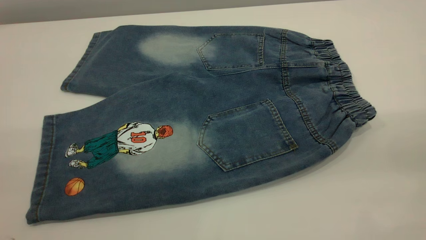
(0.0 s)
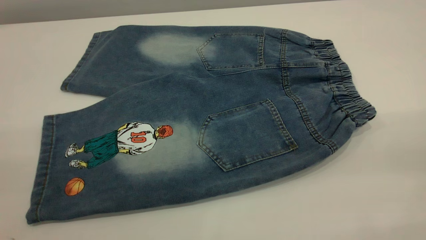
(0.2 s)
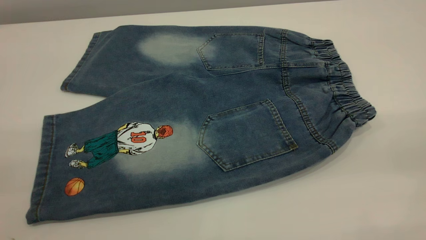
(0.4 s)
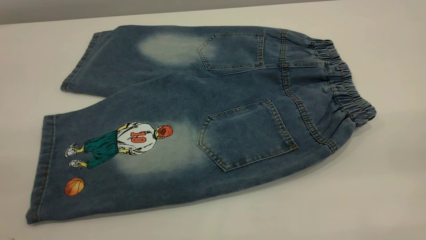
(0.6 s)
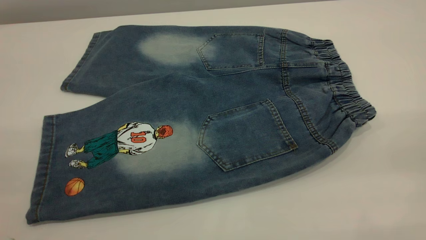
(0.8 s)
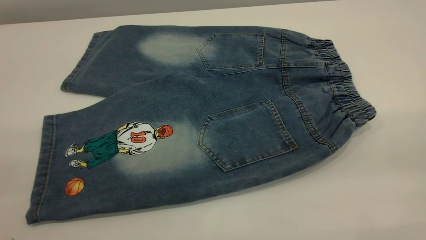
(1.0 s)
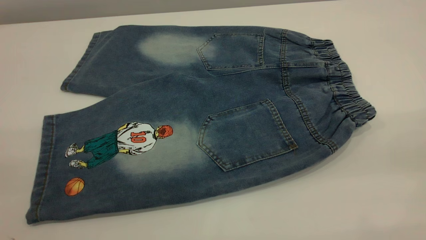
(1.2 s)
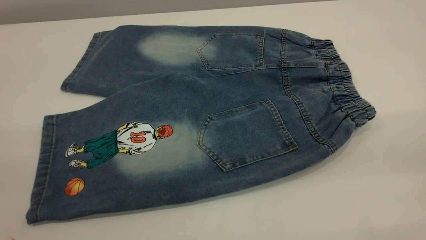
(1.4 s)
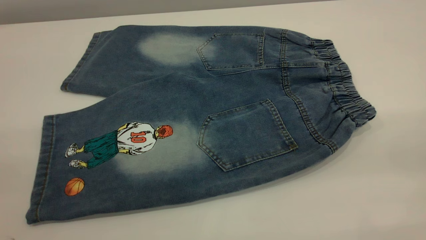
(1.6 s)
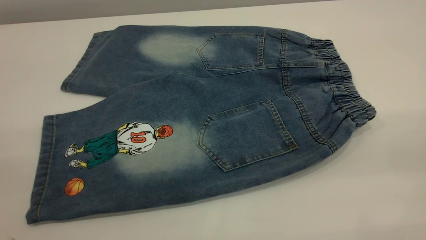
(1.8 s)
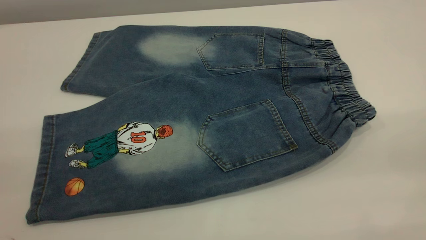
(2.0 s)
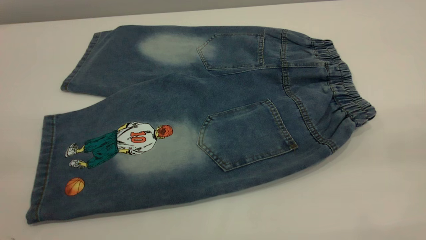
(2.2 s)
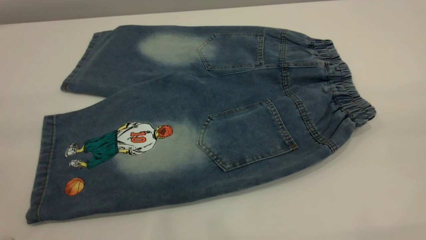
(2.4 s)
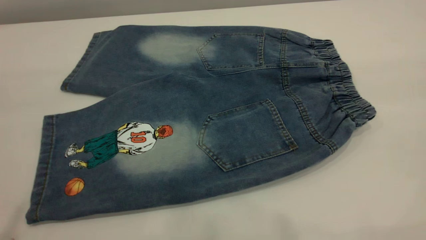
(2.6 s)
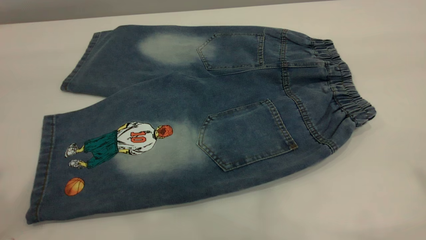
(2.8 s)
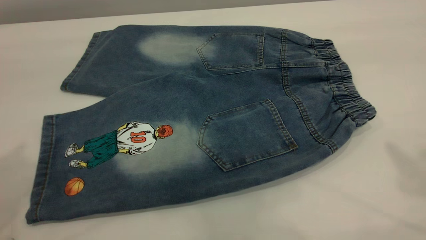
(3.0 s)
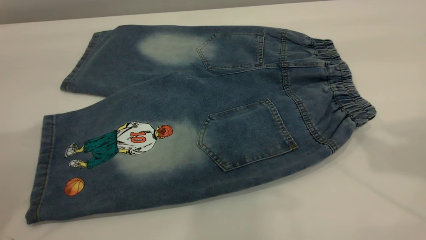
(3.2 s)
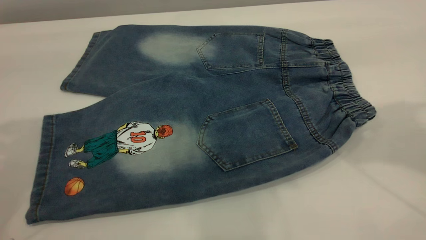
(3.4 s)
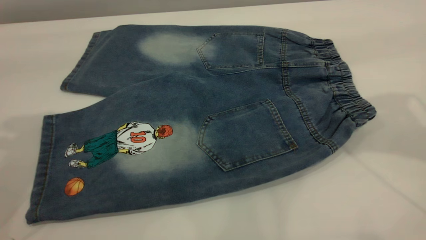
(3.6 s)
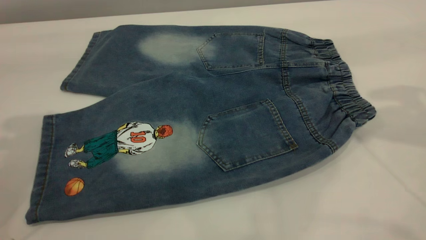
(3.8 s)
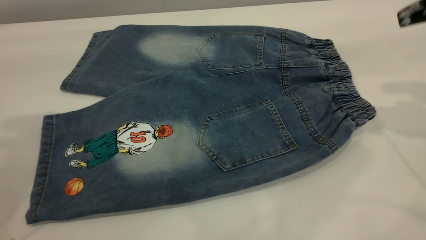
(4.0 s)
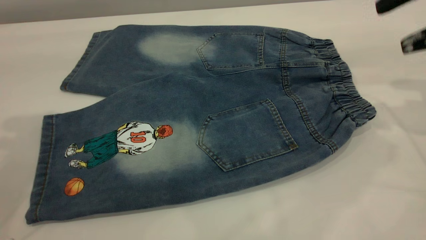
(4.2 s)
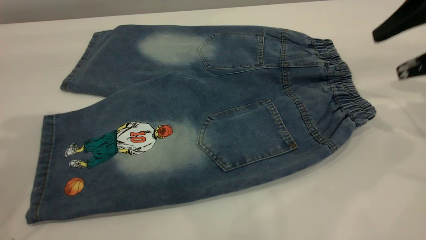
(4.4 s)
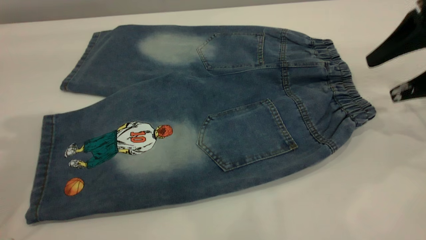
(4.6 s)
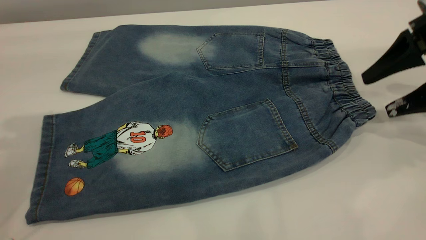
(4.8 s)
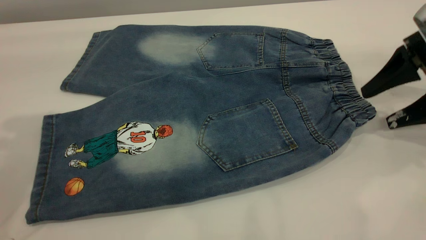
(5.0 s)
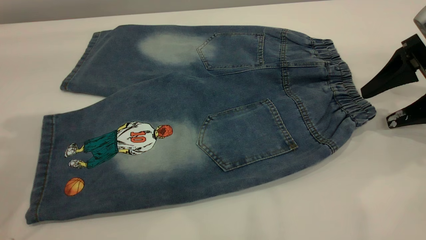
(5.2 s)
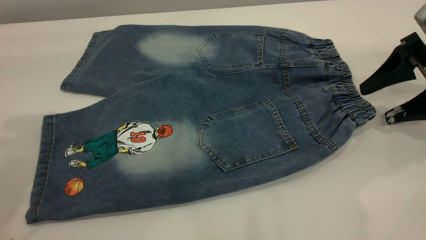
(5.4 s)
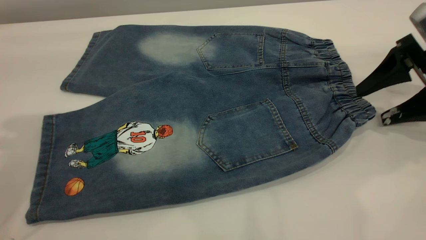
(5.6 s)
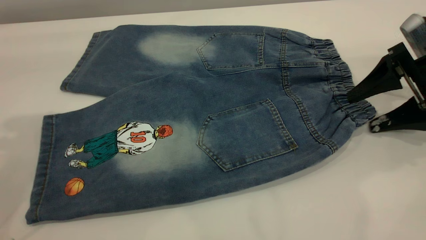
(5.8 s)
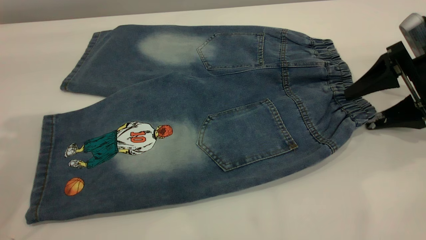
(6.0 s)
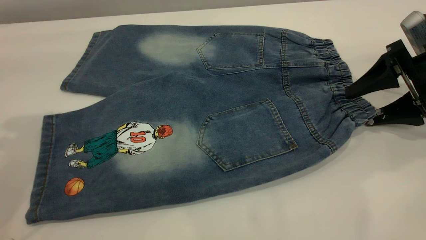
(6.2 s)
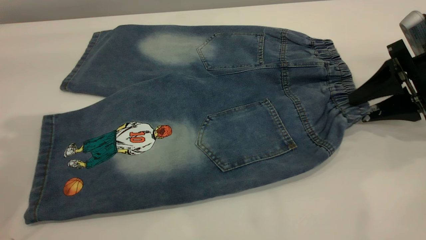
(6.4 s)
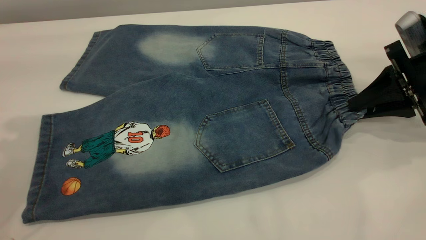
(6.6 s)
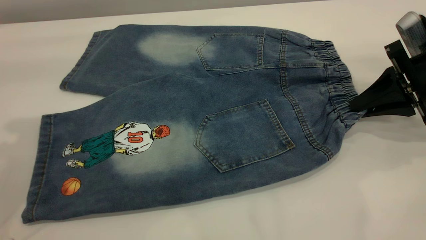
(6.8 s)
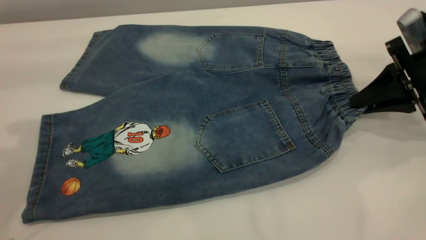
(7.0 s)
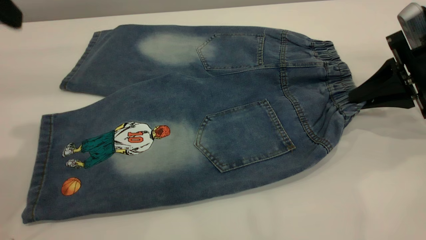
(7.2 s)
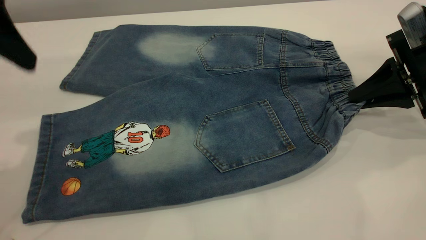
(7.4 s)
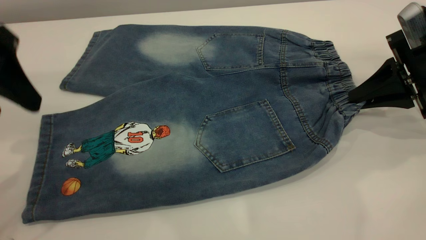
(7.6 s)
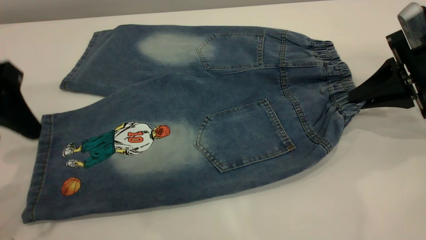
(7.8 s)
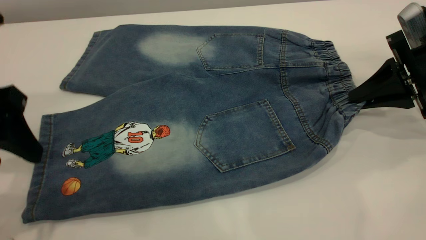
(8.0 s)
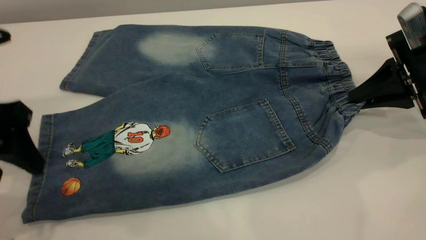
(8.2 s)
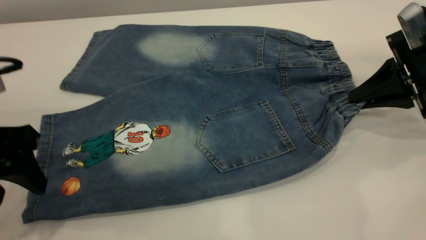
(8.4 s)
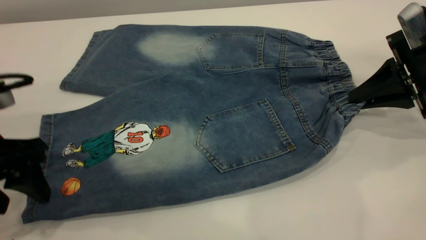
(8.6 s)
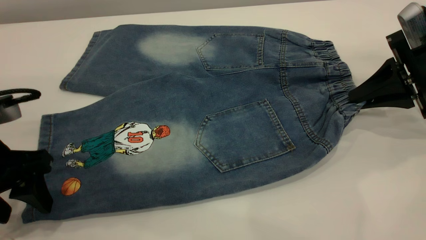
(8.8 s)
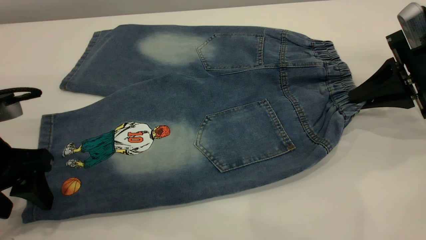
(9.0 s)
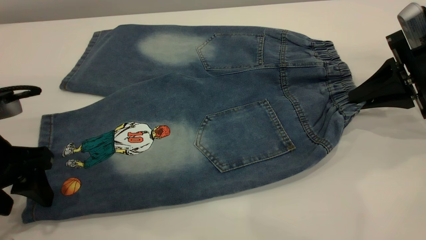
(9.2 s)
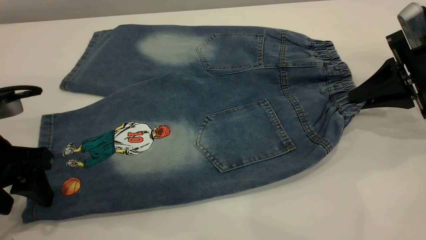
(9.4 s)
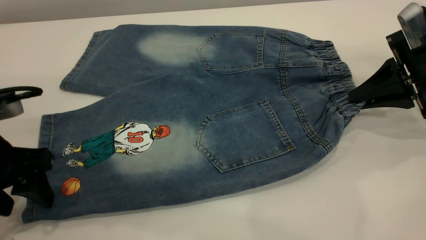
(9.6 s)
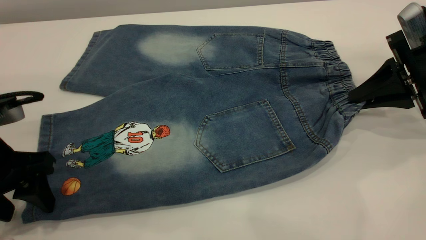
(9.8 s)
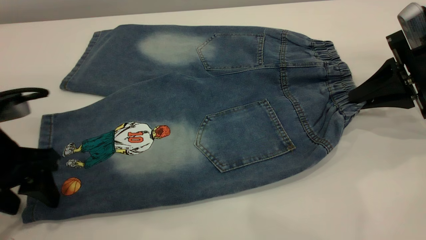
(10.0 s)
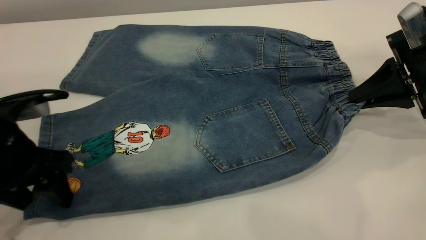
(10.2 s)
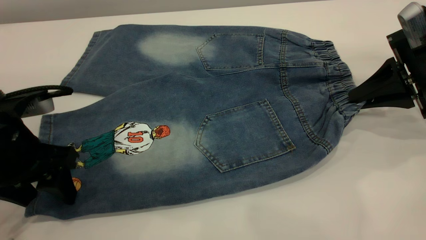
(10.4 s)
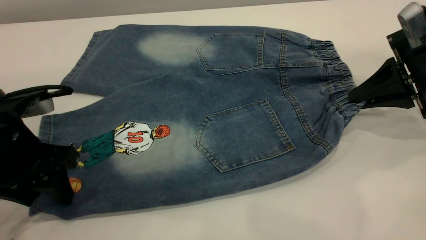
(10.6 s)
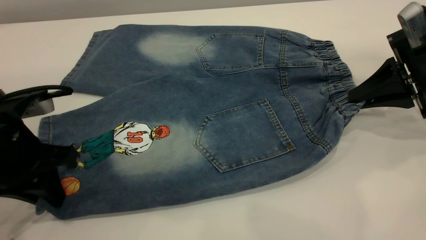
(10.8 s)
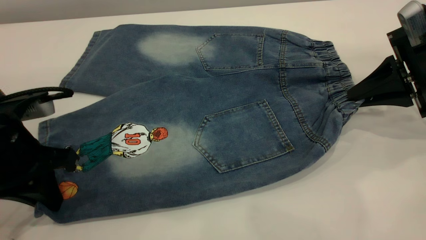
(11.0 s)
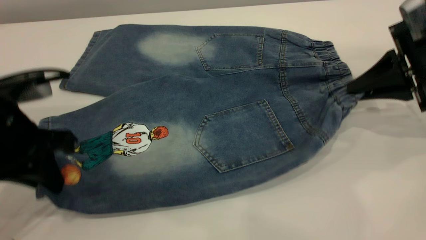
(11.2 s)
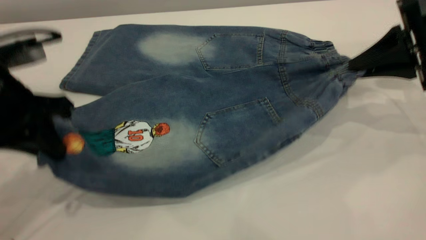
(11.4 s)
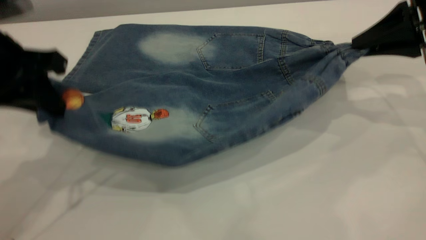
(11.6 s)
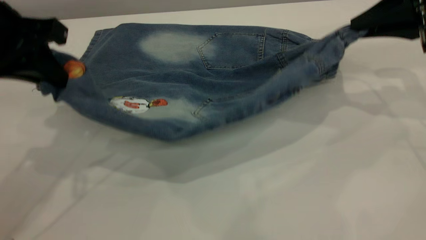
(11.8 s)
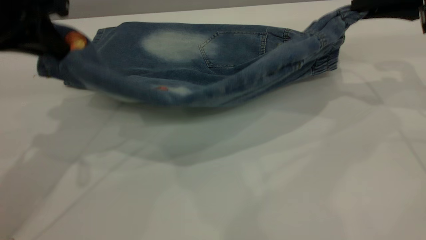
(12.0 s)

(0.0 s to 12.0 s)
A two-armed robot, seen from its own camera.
0.0 s - 1.6 s: Neither gripper changes place.
1.6 s - 3.0 s: The grippers both shift forward by about 20 cm.
3.0 s - 4.4 s: The left gripper shifts approximately 10 cm forward and downward. Meanwhile the right gripper moves downward and forward, about 25 cm.
4.4 s - 6.0 s: The right gripper goes approximately 10 cm downward.
6.0 s - 7.6 s: The left gripper travels downward by some 10 cm, while the right gripper closes up.
7.6 s - 9.0 s: The left gripper goes about 10 cm downward.
9.0 s - 10.4 s: There are only small adjustments of the grippers.
10.4 s - 12.0 s: The two grippers go approximately 15 cm upward and forward. The left gripper closes up.

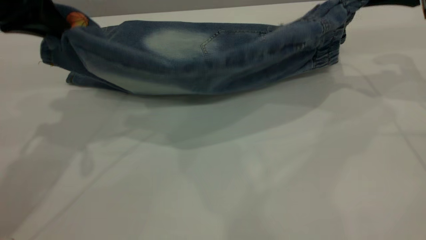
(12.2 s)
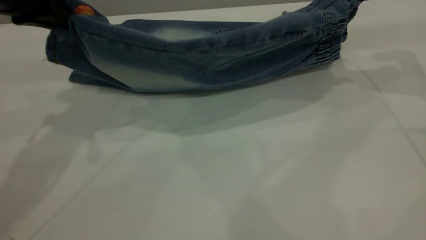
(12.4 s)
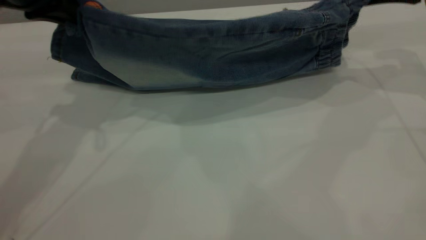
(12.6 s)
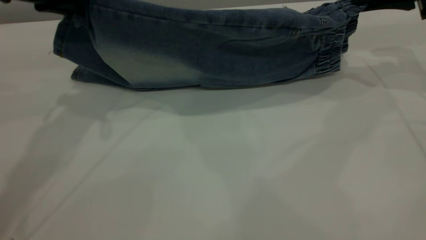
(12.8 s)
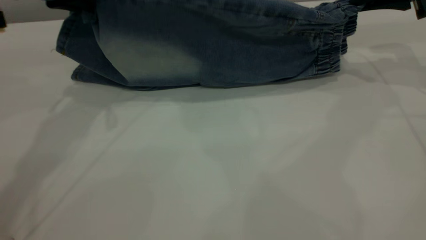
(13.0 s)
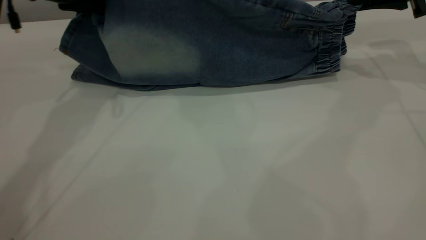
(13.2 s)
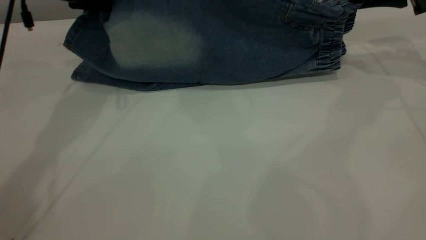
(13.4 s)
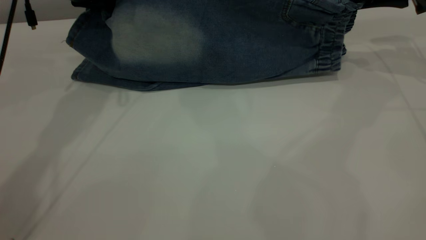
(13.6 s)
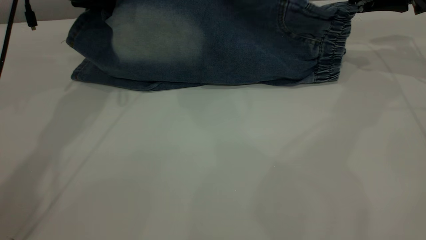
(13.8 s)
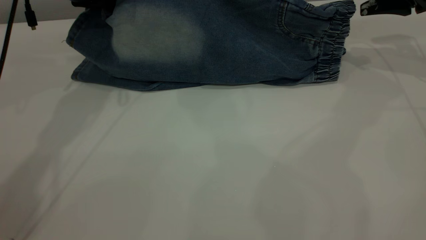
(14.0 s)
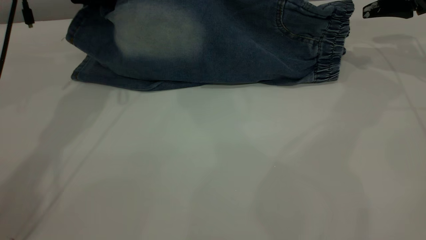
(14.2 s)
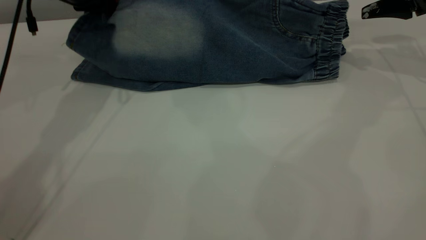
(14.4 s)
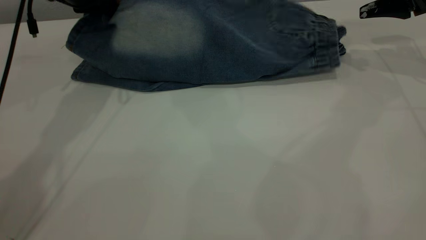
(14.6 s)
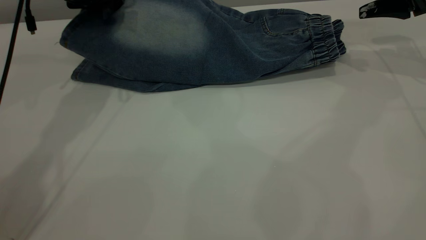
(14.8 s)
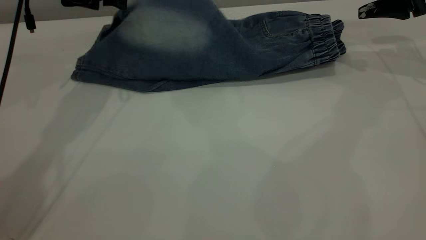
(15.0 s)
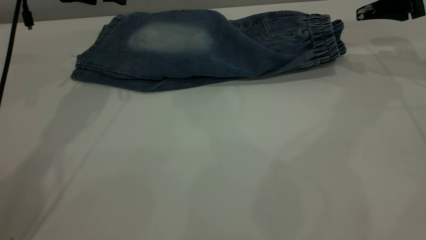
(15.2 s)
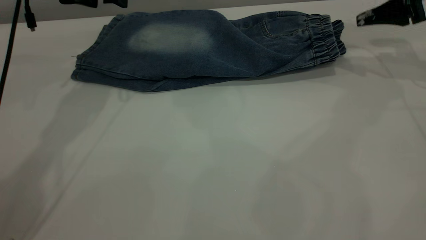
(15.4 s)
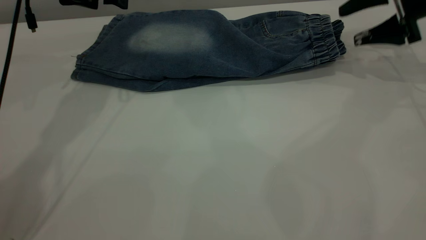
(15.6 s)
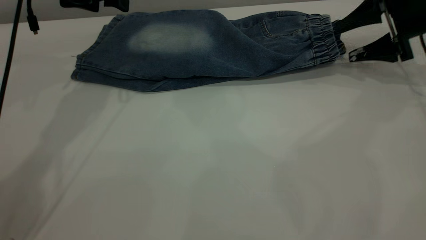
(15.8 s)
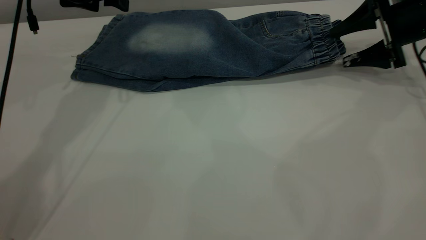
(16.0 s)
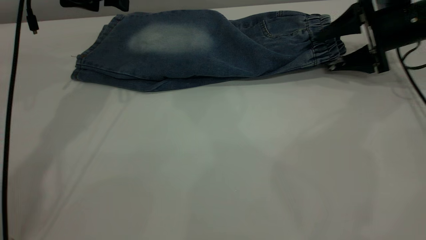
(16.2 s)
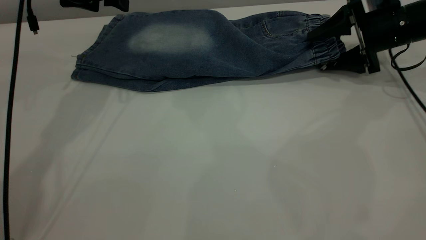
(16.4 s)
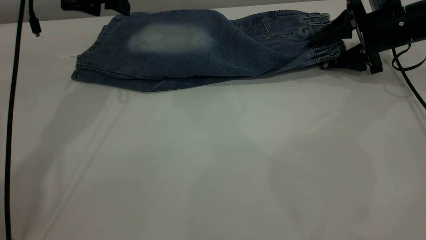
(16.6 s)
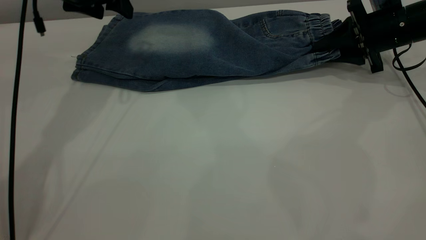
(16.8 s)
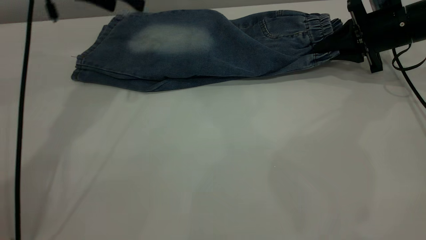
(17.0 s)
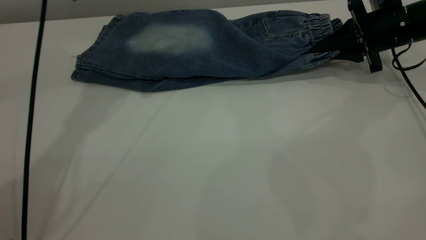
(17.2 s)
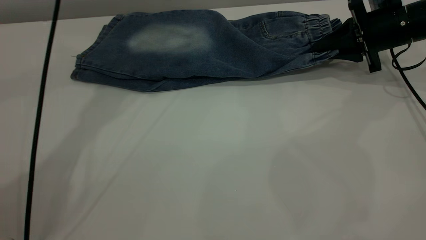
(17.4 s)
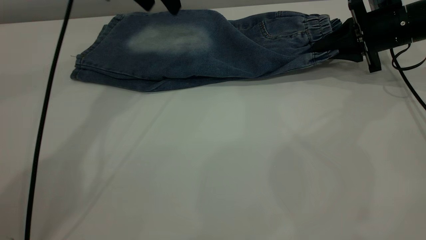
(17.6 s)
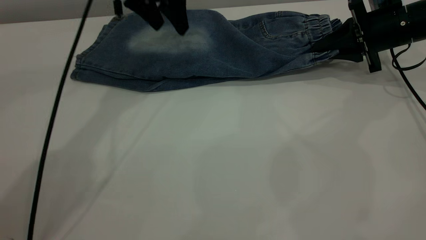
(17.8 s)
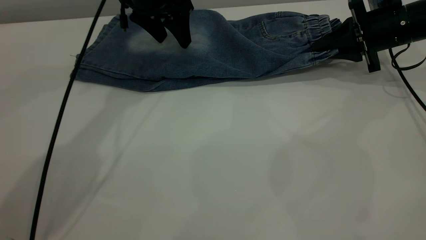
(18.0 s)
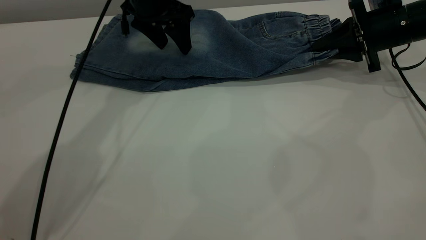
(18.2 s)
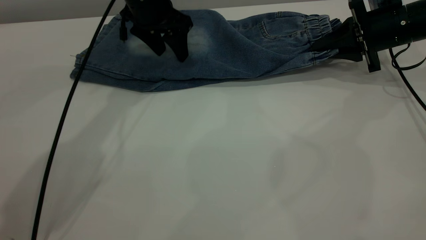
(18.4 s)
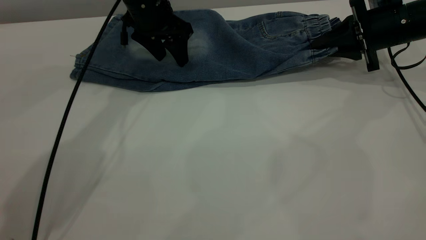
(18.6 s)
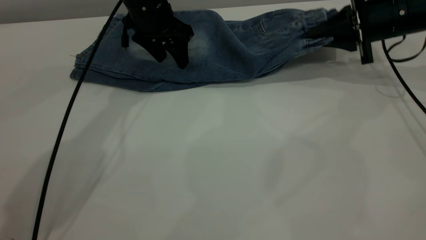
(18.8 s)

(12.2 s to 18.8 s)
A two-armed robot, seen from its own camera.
Step, 12.2 s - 15.2 s: Fold the bottom of the pants upward.
12.2 s - 13.8 s: The right gripper heads forward, covering roughly 5 cm, and opens up, while the left gripper travels forward by approximately 15 cm.
13.8 s - 15.4 s: The left gripper opens its fingers, while the right gripper opens up.
15.4 s - 17.2 s: The right gripper shifts approximately 10 cm downward, and closes, while the left gripper goes roughly 5 cm to the right.
17.2 s - 18.8 s: The left gripper shifts about 10 cm downward.
